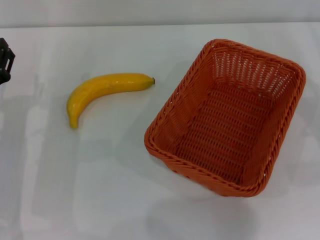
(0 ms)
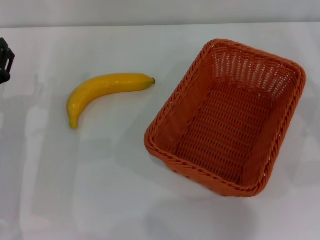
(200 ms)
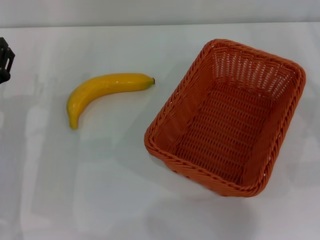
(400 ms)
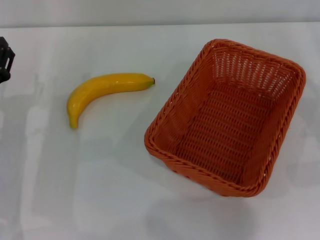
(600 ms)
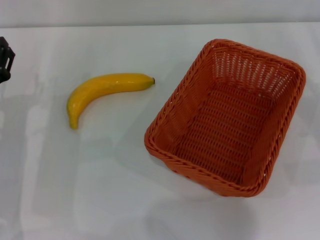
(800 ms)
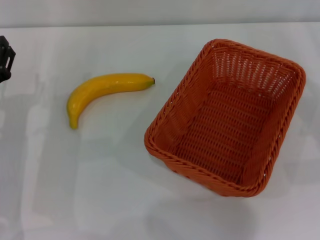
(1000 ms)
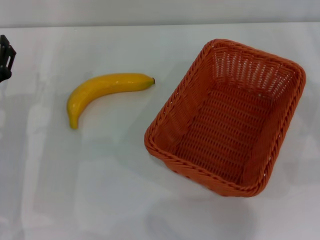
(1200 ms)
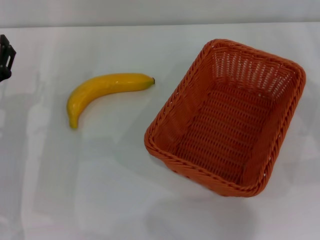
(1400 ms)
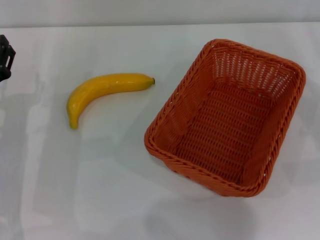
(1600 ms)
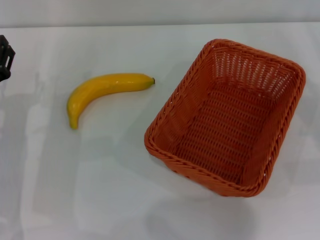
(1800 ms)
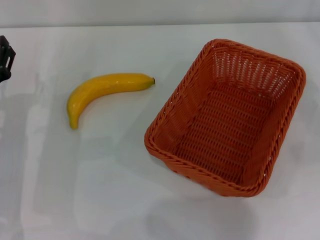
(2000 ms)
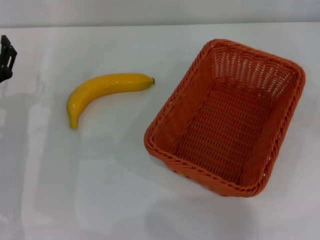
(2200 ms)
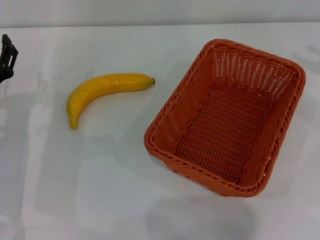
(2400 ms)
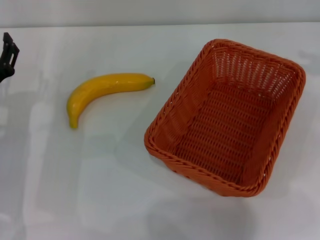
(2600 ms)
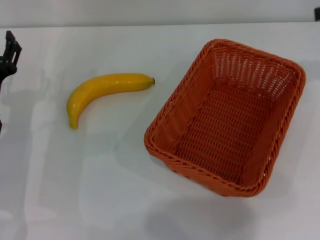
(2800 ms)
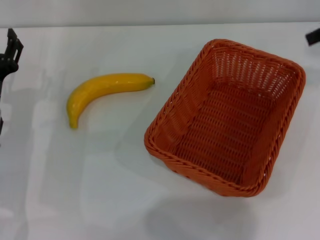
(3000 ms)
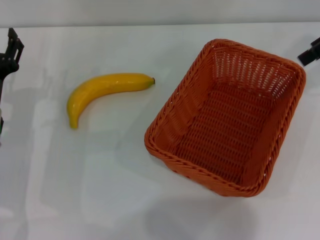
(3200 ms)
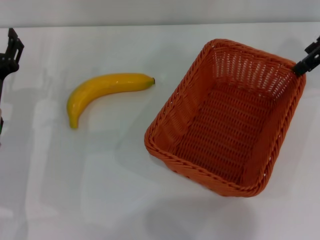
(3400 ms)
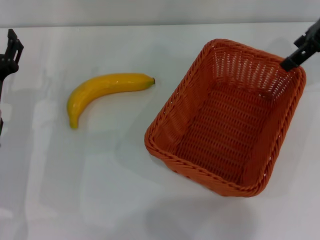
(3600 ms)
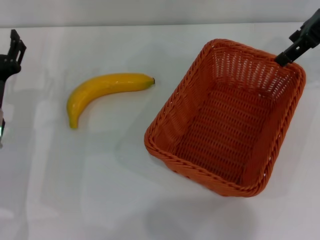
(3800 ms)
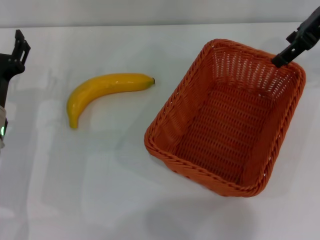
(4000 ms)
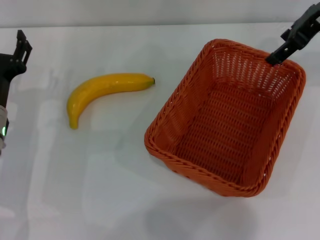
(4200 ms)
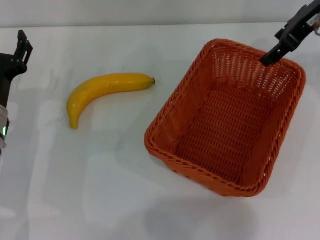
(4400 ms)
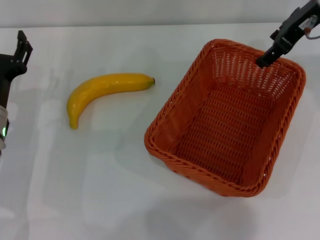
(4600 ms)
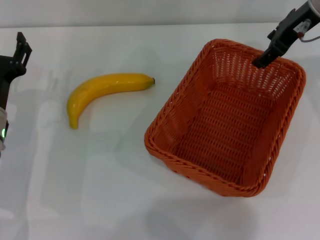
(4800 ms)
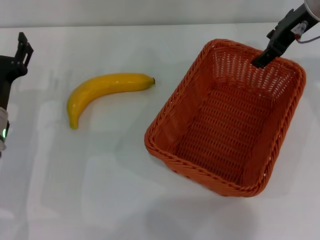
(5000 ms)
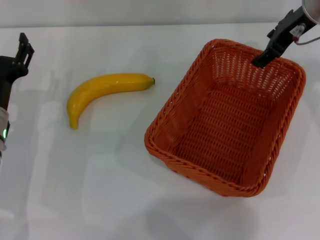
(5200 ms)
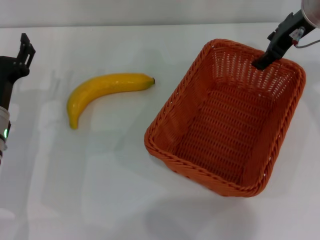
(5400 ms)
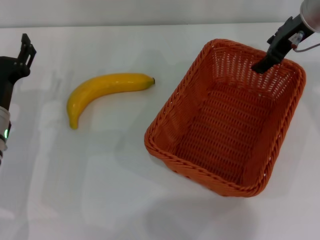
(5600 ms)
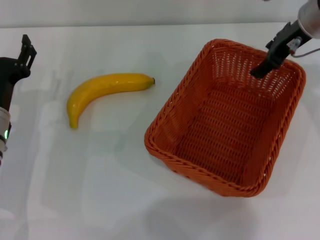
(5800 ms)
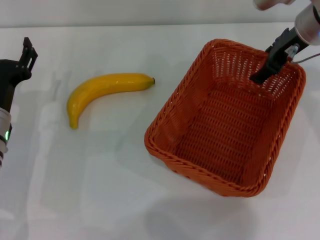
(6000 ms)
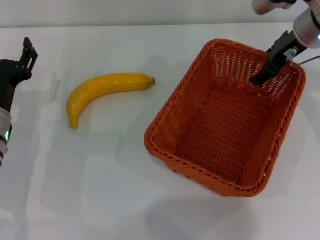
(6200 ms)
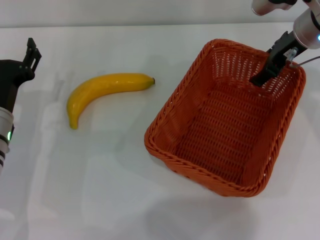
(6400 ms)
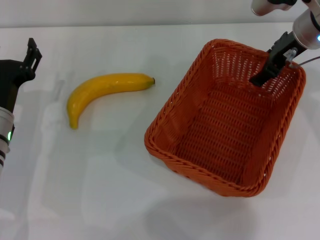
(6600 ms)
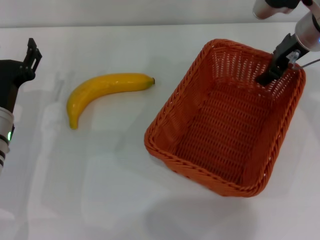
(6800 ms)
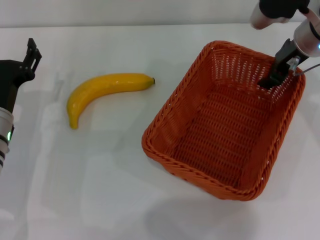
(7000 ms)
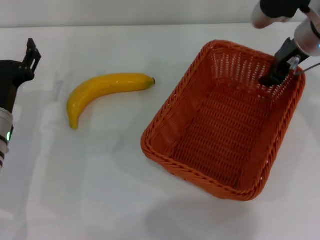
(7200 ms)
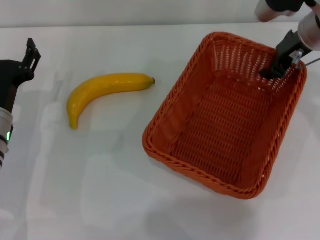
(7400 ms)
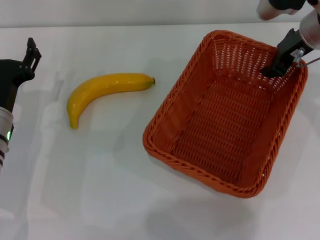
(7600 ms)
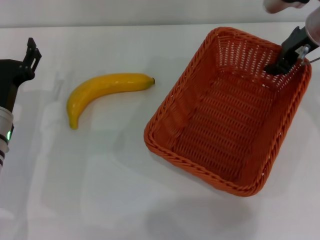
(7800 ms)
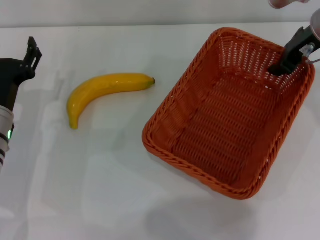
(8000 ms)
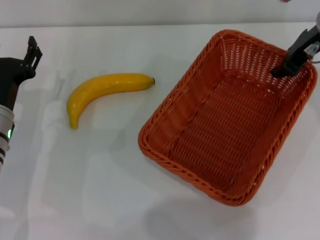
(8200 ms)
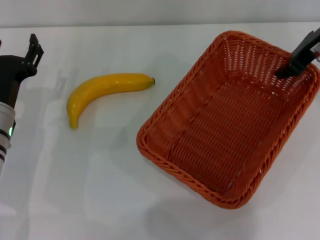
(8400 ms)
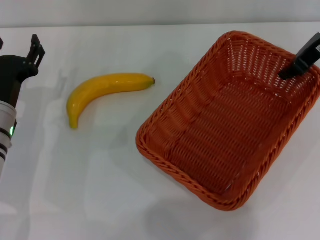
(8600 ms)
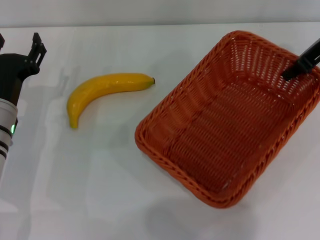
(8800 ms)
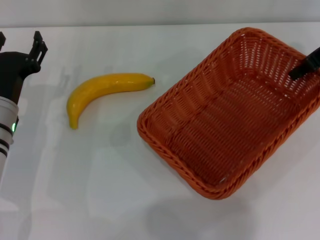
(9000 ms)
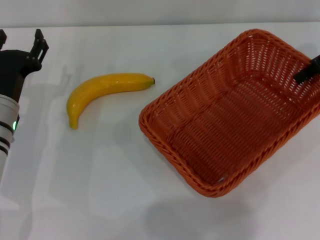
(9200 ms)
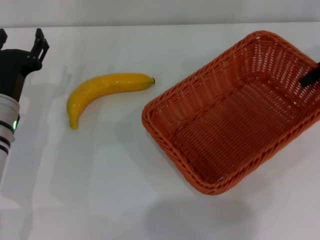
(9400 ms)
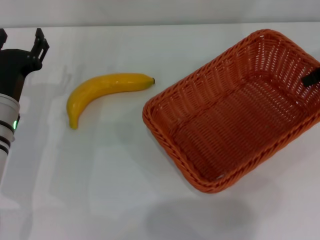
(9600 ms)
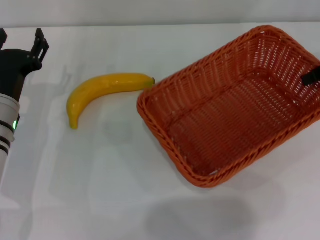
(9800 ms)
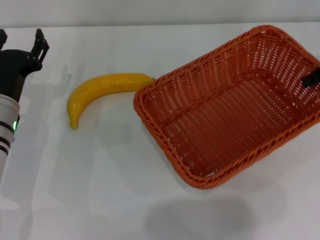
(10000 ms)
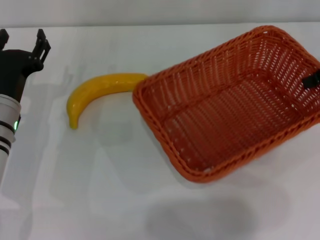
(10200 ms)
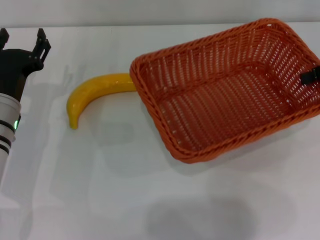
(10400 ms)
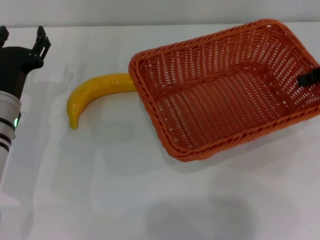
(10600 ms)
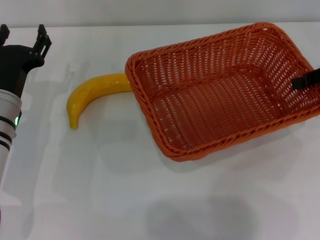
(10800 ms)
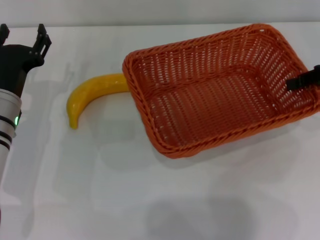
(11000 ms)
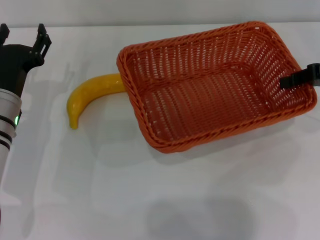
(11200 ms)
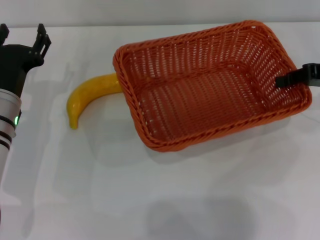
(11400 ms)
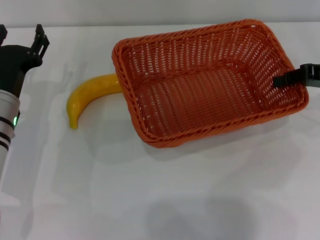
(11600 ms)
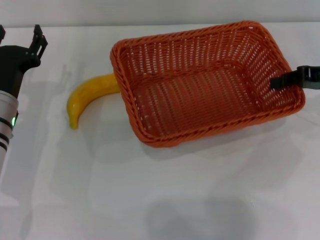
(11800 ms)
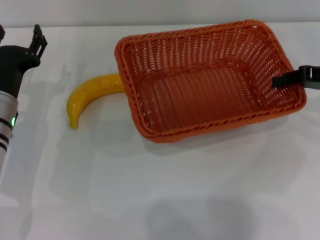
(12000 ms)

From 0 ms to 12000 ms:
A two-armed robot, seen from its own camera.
Step, from 0 ms to 8000 ms: Pick up the light basket with the right gripper.
From 0 ms to 1600 ms: Neither gripper changes place.
From 1600 ms to 3000 ms: The right gripper shifts approximately 25 cm upward and forward.
From 3000 ms to 4400 ms: The right gripper goes approximately 10 cm to the left.
From 4400 ms to 6000 ms: The right gripper goes approximately 5 cm downward.
From 6000 ms to 7600 ms: The right gripper closes.
From 7600 ms to 9000 ms: The right gripper goes roughly 5 cm to the right.
From 9000 ms to 10400 ms: The right gripper shifts approximately 5 cm to the right.
From 10400 ms to 12000 ms: The right gripper moves downward, approximately 5 cm.

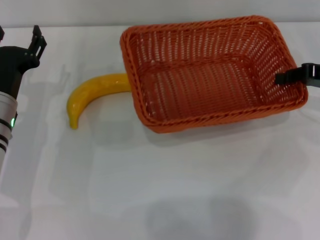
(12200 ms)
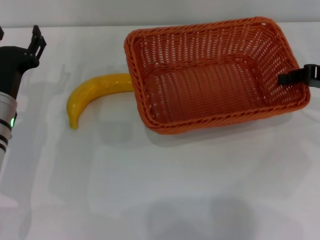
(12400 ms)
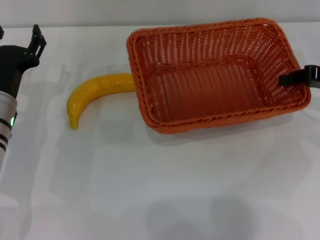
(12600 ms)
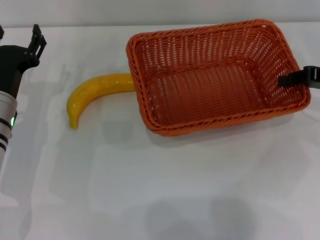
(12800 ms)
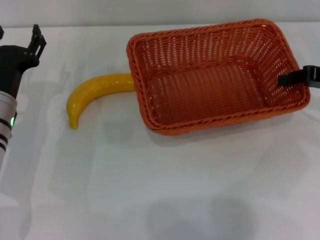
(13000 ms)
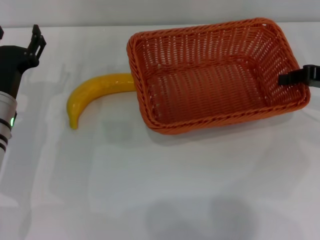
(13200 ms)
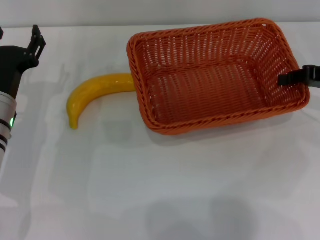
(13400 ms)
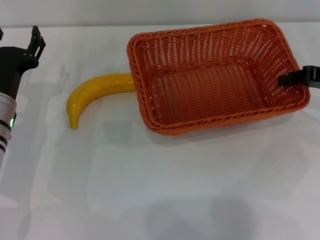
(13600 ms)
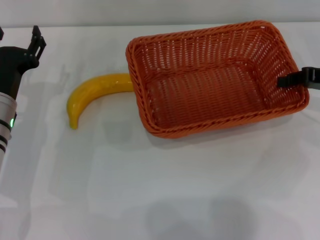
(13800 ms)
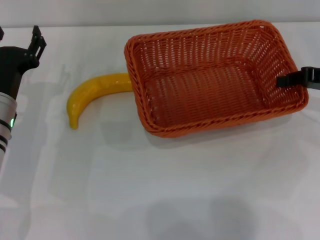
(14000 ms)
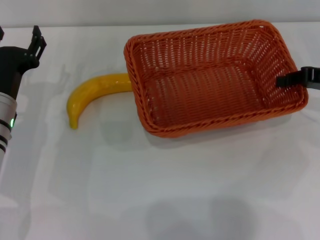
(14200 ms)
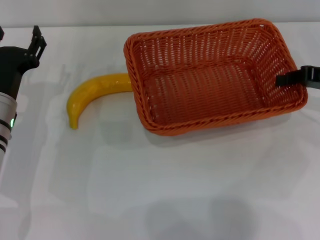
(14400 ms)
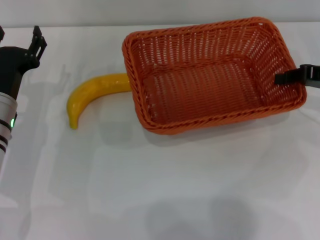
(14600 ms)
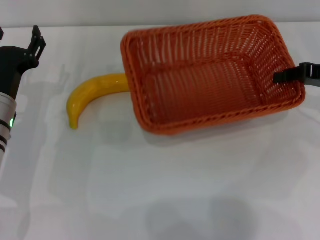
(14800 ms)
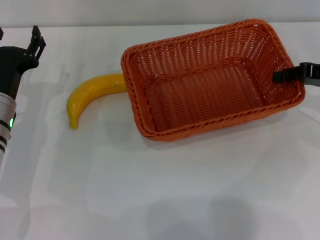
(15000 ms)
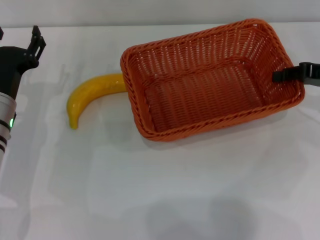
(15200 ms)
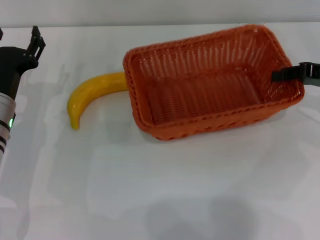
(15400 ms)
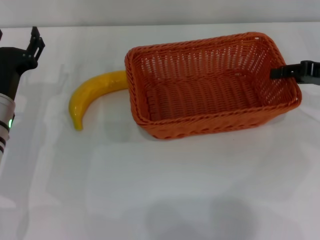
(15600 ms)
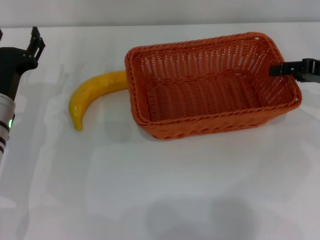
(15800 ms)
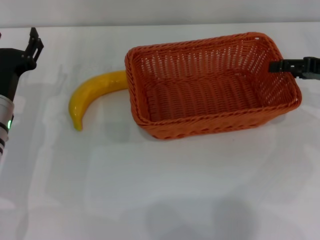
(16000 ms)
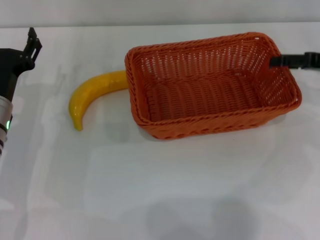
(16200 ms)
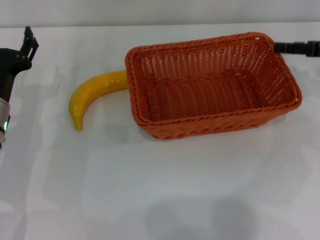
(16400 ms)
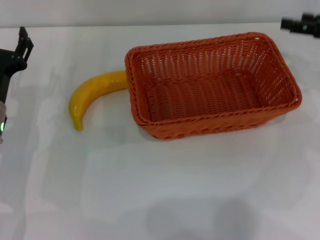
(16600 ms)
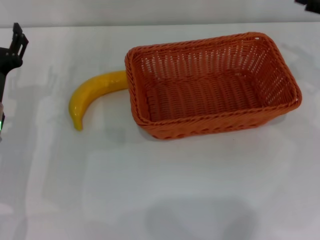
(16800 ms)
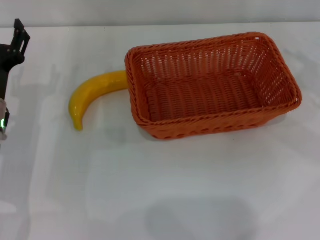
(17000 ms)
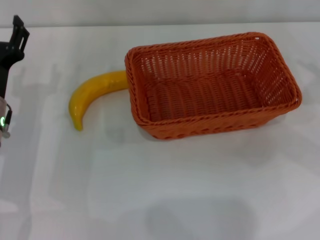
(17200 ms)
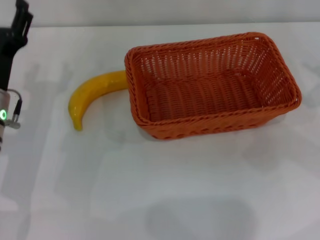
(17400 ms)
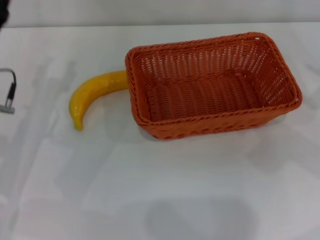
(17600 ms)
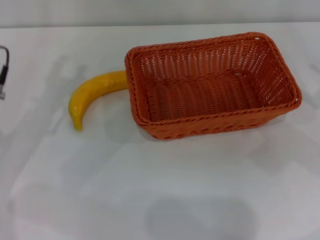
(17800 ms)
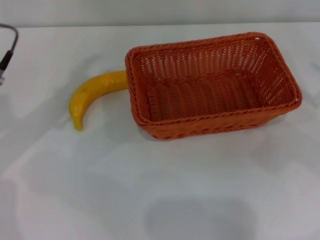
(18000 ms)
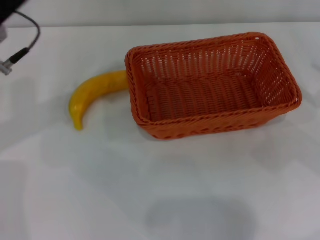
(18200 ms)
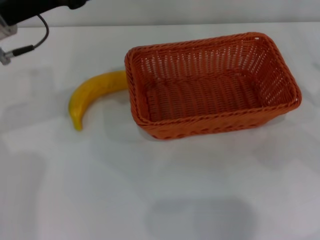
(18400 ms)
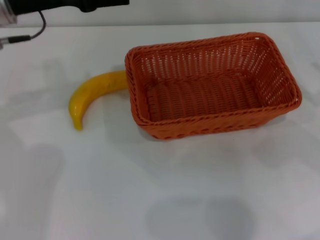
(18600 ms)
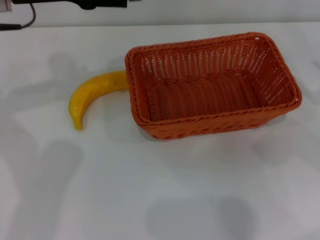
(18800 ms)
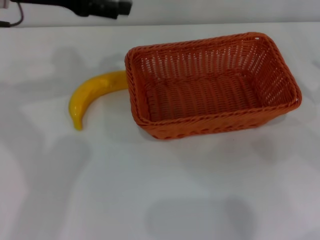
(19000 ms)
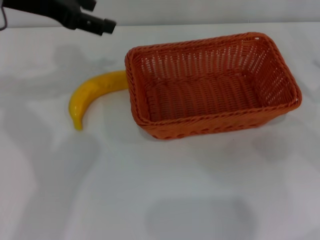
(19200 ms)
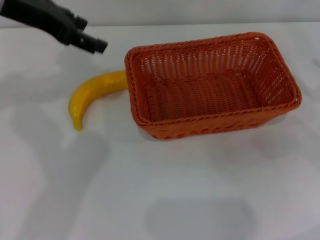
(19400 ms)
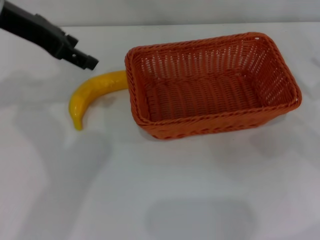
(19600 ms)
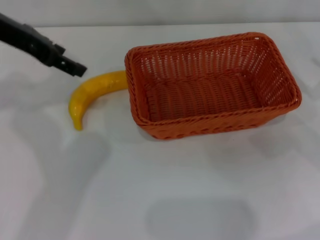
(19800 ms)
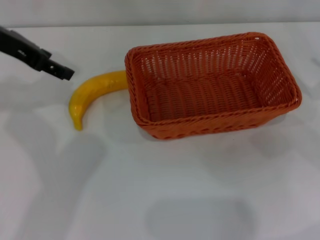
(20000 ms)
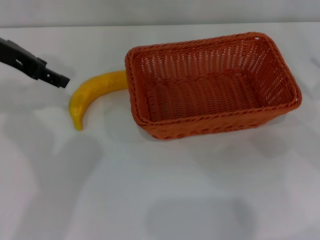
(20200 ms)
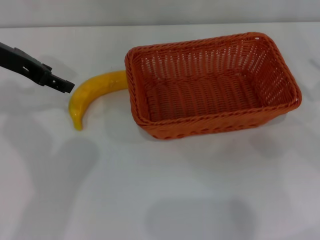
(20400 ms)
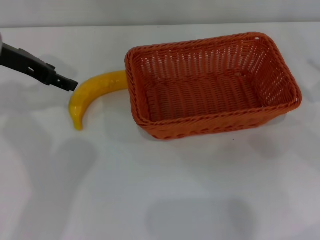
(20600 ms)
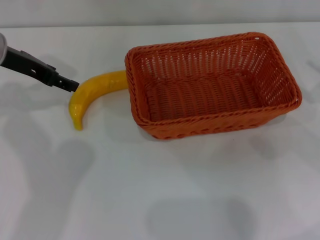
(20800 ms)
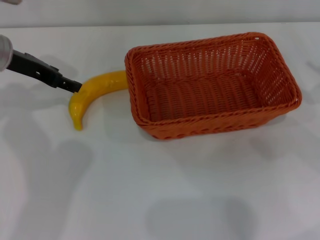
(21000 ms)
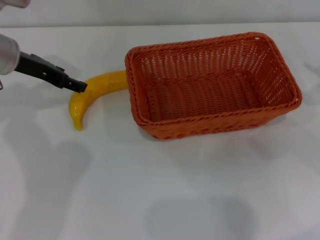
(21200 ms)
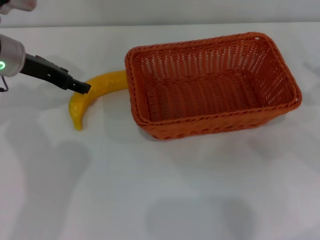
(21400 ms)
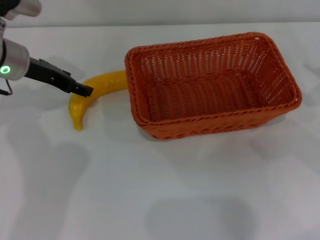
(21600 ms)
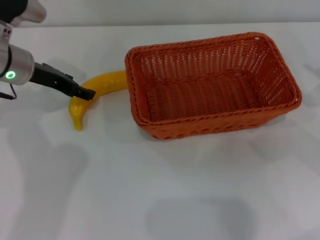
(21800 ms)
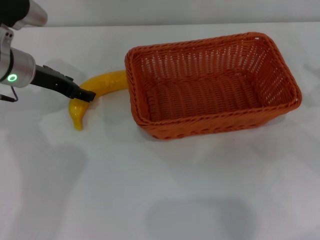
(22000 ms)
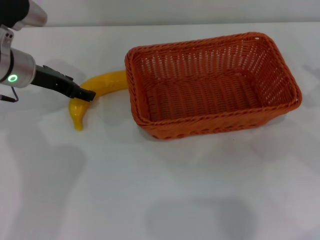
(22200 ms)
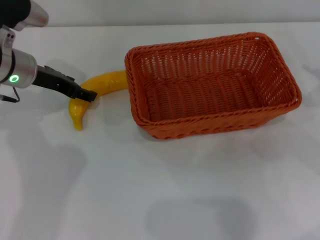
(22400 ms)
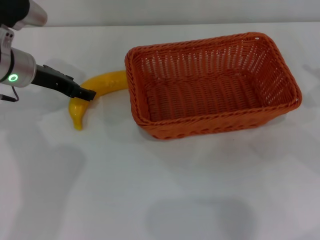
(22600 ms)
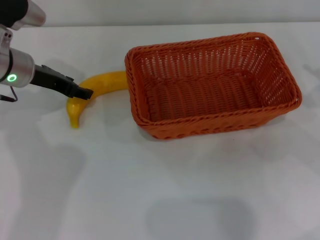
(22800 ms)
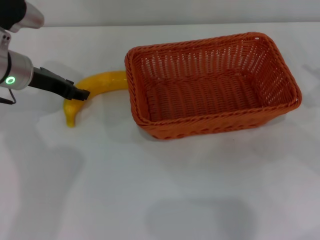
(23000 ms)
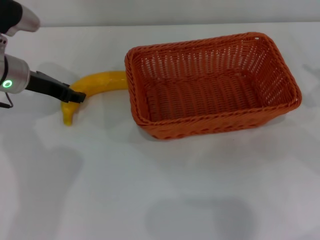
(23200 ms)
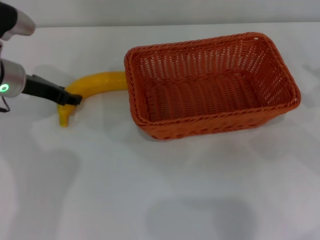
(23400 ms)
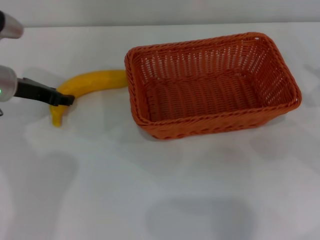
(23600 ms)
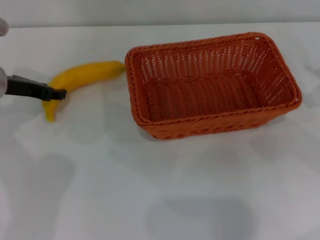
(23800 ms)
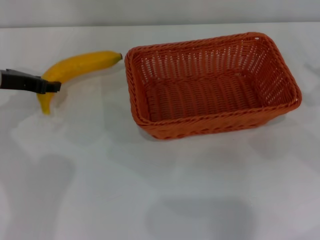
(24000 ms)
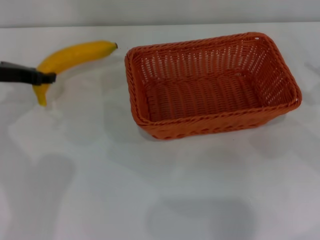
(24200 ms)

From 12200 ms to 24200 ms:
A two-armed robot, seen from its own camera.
Step, from 12200 ms to 16400 ms: Place the light basket in the center of view with the right gripper.
From 12200 ms to 15200 ms: Neither gripper changes place.
From 15200 ms to 16600 ms: The right gripper opens up.
From 16600 ms to 18200 ms: The right gripper is displaced backward by about 10 cm. Meanwhile the left gripper shifts about 15 cm upward.
From 18200 ms to 19800 ms: The left gripper moves upward, about 5 cm.
From 19800 ms to 21200 ms: The left gripper goes some 10 cm downward.
From 21200 ms to 22600 ms: The grippers stay close to where they were, moving slightly.
From 22600 ms to 24200 ms: The left gripper heads to the left, covering roughly 5 cm, and closes up.
